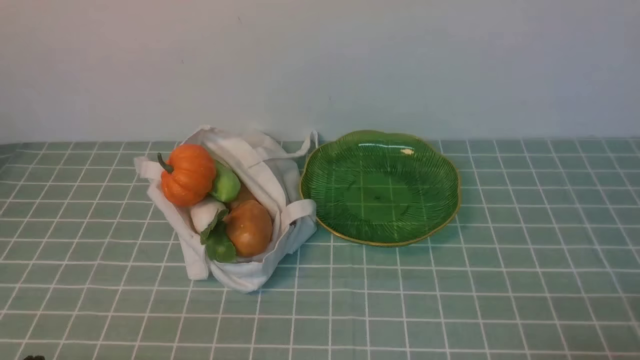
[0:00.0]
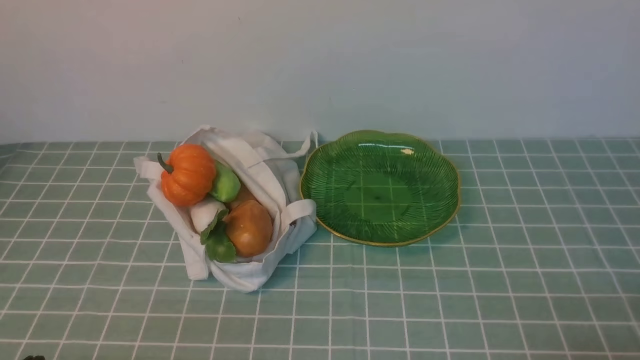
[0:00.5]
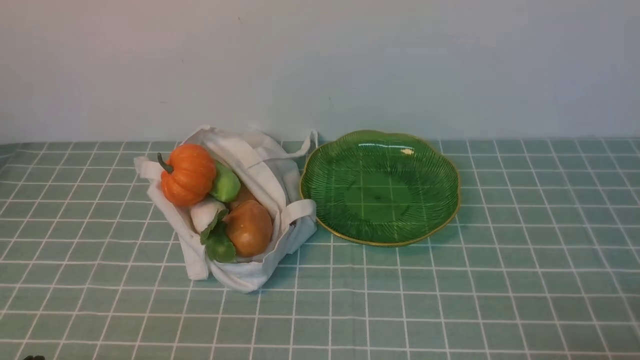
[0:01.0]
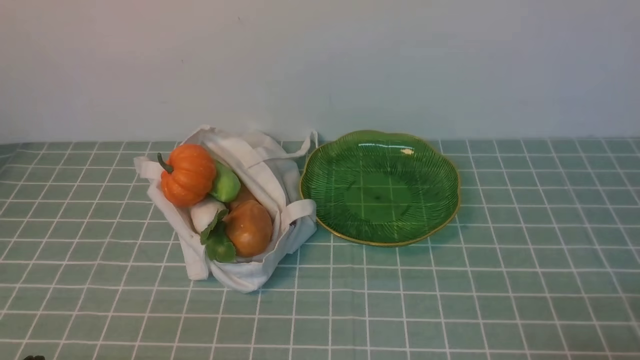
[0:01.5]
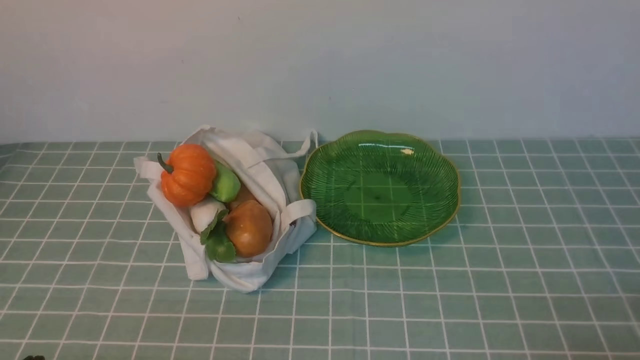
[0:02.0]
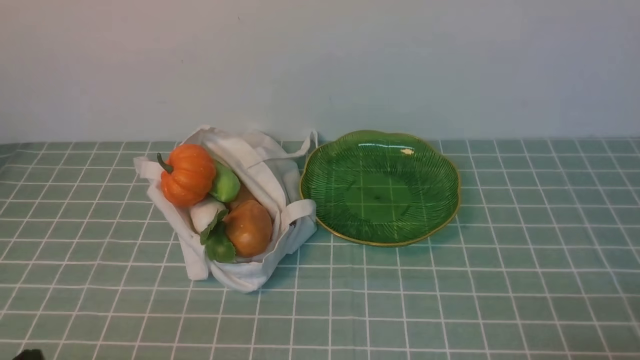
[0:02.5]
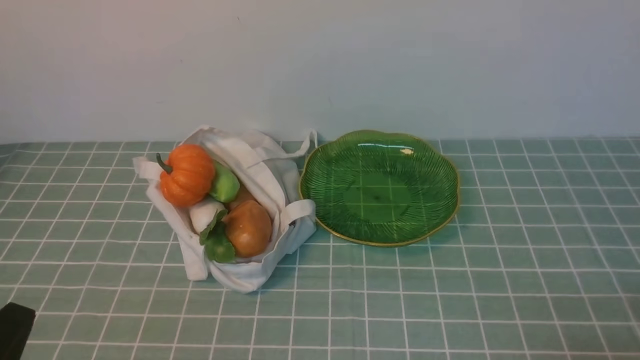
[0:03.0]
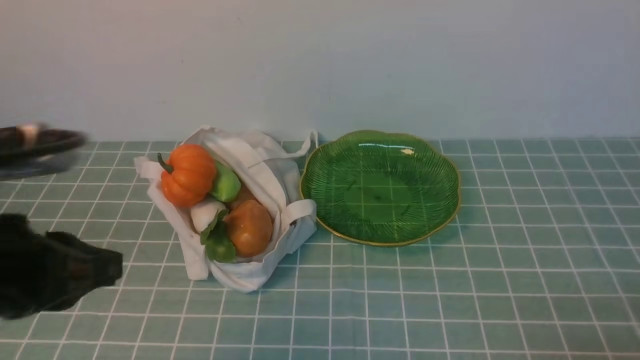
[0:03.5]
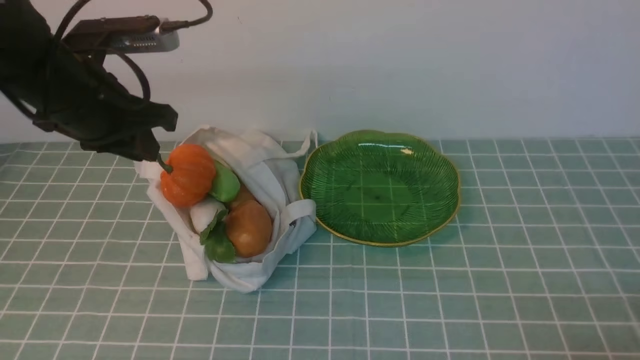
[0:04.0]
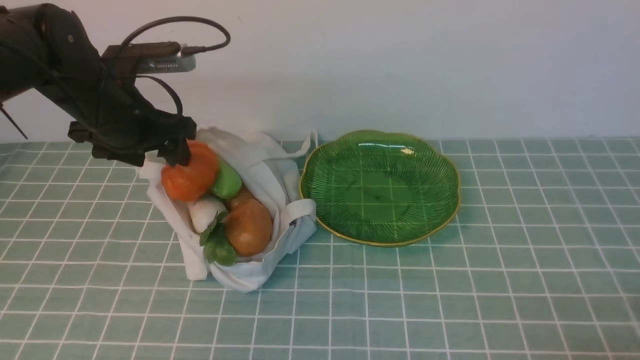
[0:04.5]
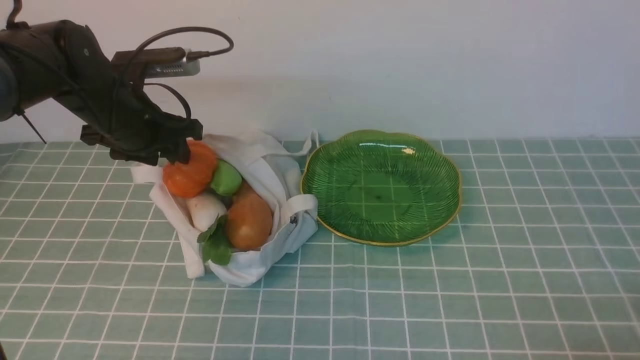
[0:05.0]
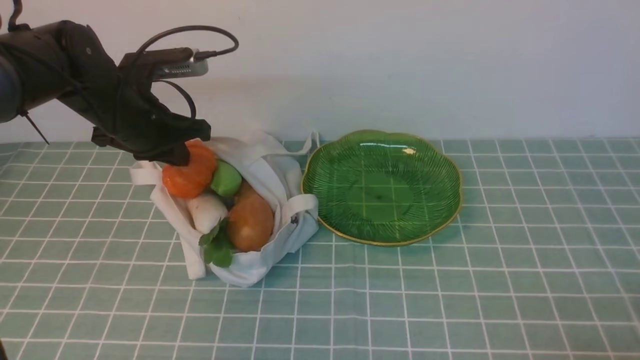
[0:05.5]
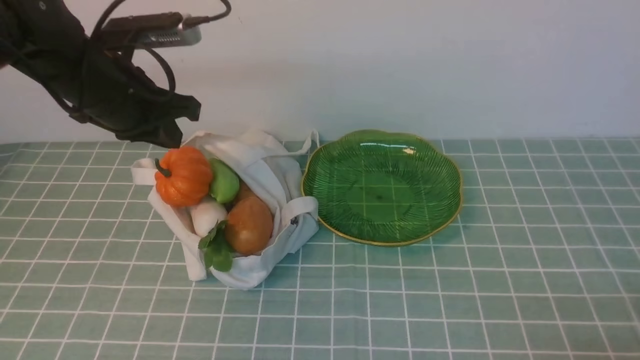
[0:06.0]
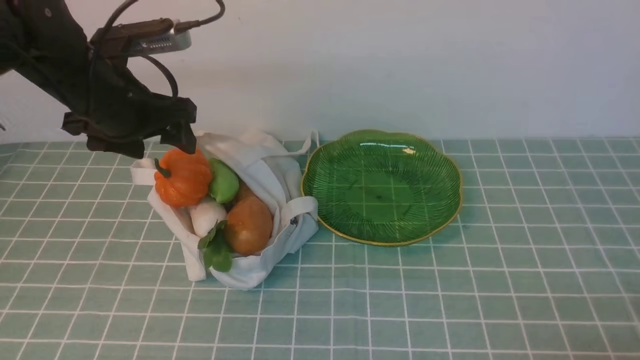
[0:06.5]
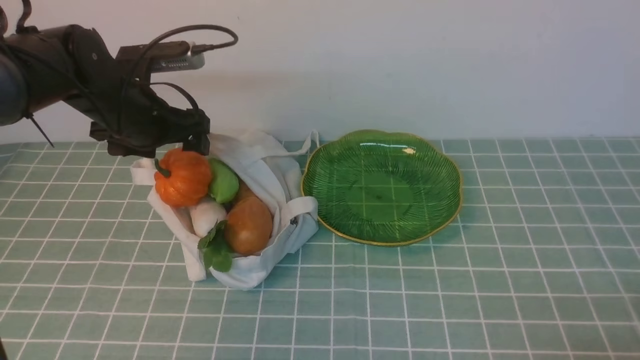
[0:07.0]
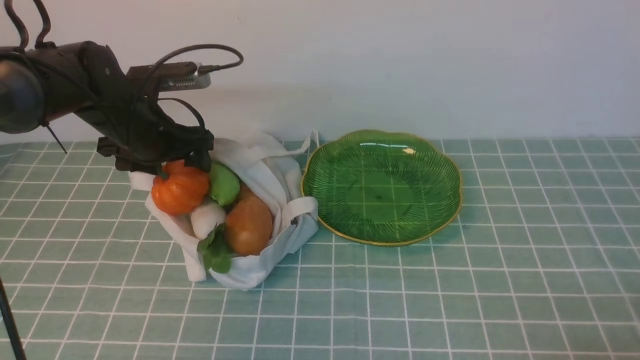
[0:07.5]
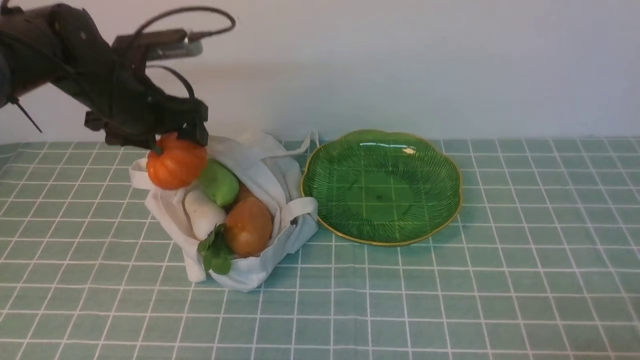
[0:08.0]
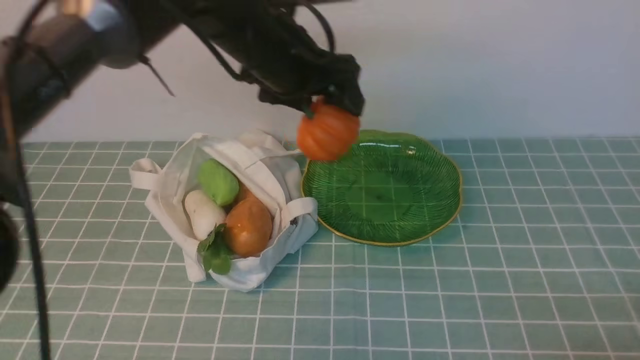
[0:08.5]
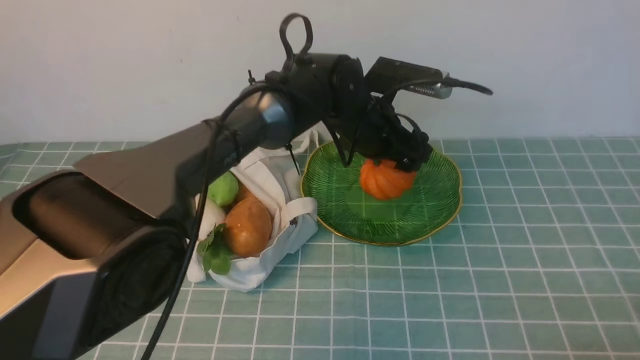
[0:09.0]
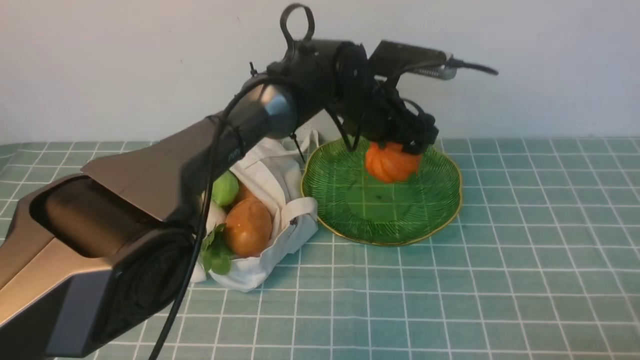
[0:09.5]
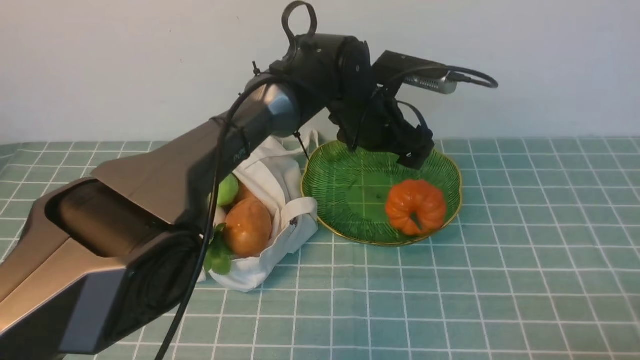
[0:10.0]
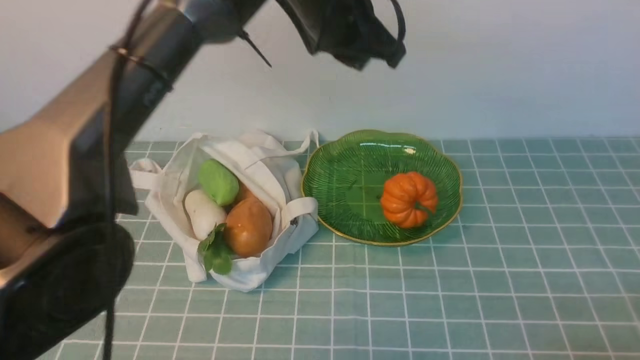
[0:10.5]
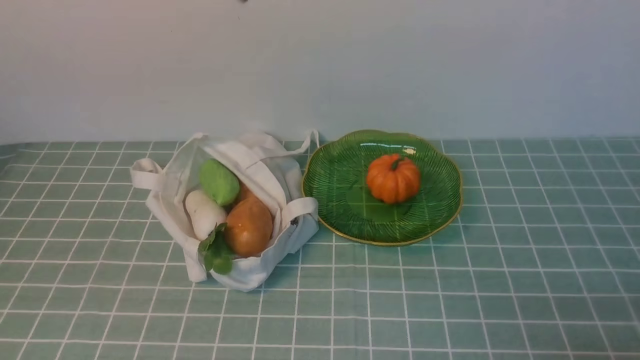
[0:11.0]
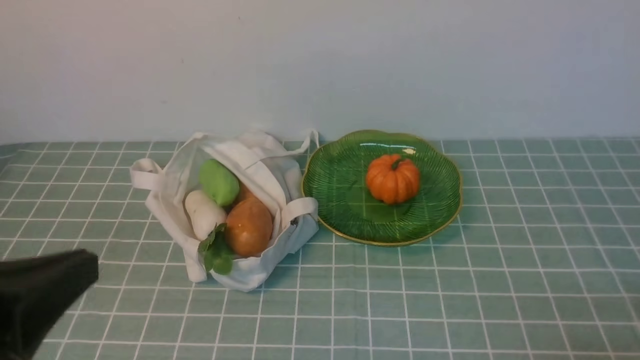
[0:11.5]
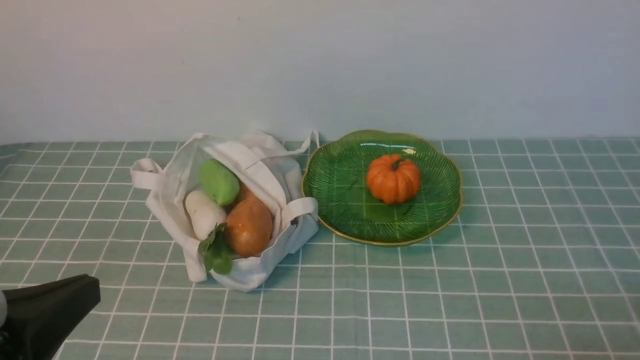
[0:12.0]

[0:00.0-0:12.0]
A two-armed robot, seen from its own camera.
Task of the whole recording: take vegetables from cloth bag on blue coffee tablecloth place on plate.
Step, 0:00.0 to 0:07.5: Grasp the pumpkin with left gripper.
Step, 0:08.0 to 0:10.0: Place the pumpkin on the plate with left gripper.
0:02.0 to 0:04.0: The left gripper moves forward and upward, roughly 30 cm.
0:04.0 to 0:06.0: The left gripper travels forward by some 5 cm, and opens, then closes once more.
0:06.0 to 0:08.0: The left gripper moves approximately 5 cm downward and comes back, and opens.
0:08.0 to 0:10.0: The right gripper closes. The left gripper travels to the right by some 25 cm.
0:10.0 to 0:12.0: The left gripper heads backward and to the left, covering about 50 cm, and closes its fingers.

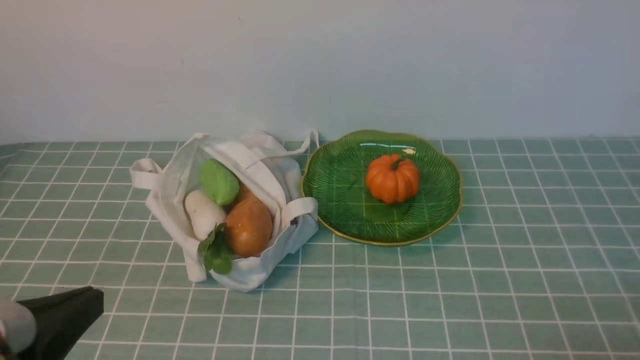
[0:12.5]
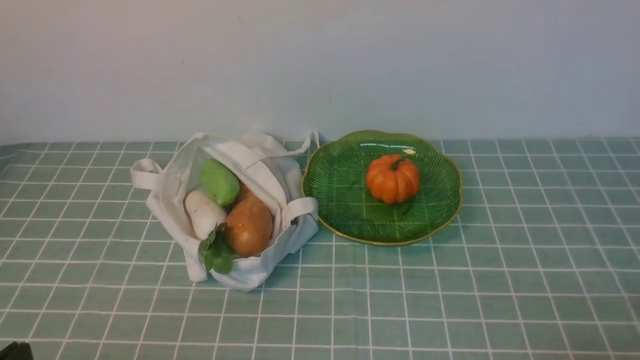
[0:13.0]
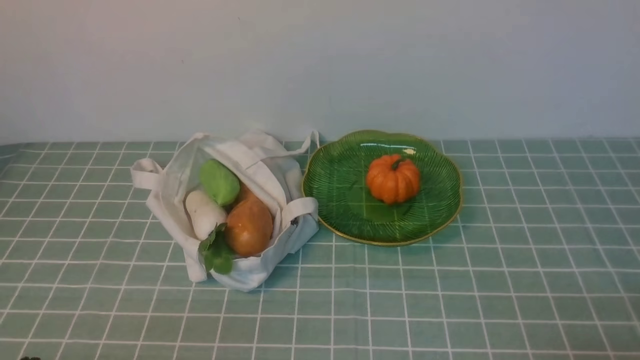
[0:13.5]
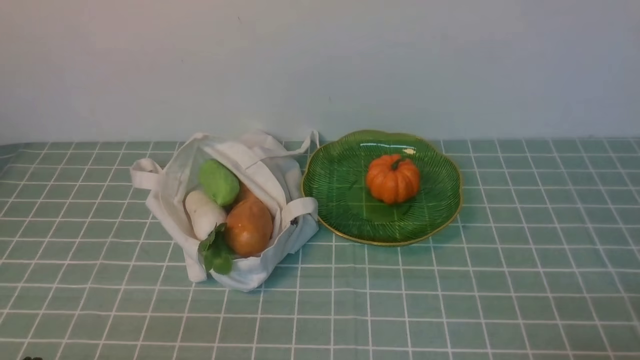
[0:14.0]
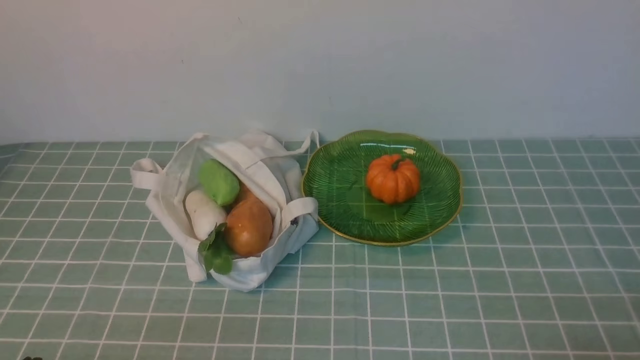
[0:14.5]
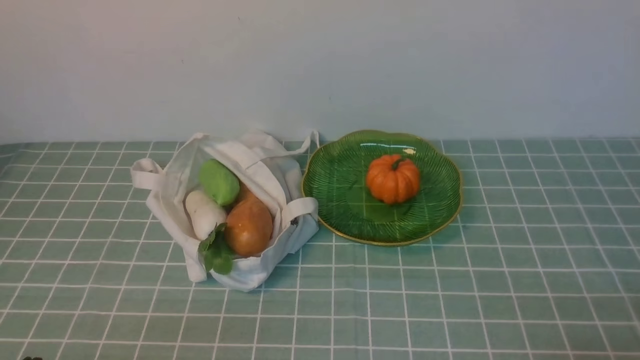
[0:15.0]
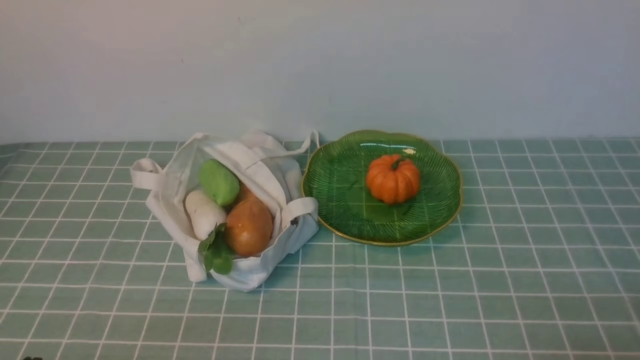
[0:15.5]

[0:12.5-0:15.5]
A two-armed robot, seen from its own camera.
Task of the whole recording: take vegetables from cloth bag on blue coffee tablecloth place on plate.
0:12.5 to 0:14.0: The left gripper goes roughly 10 cm downward.
0:14.0 to 0:15.5: The two grippers keep their place.
